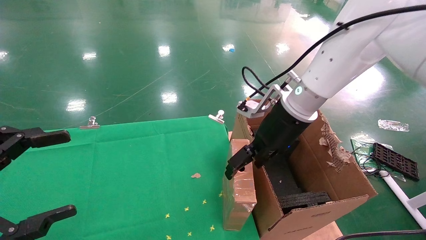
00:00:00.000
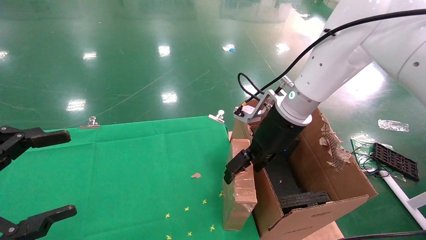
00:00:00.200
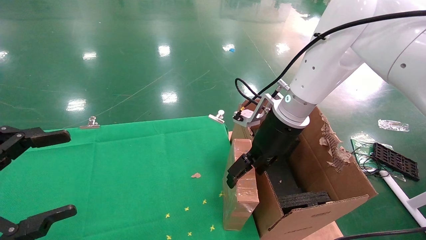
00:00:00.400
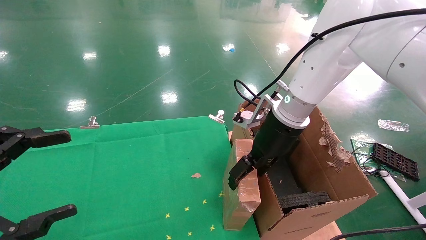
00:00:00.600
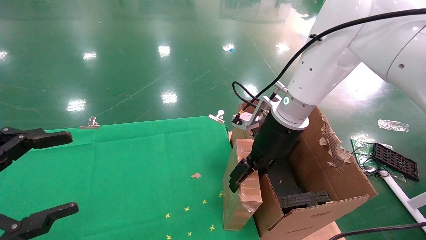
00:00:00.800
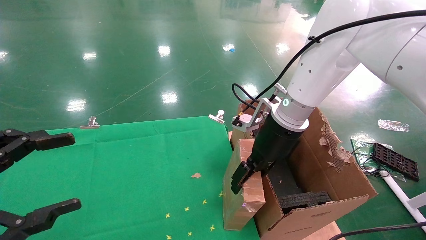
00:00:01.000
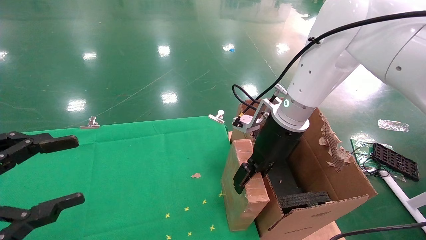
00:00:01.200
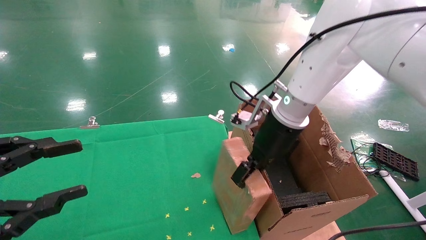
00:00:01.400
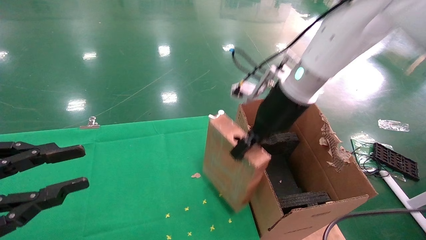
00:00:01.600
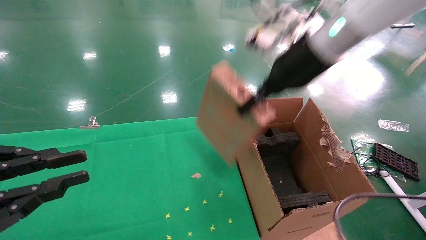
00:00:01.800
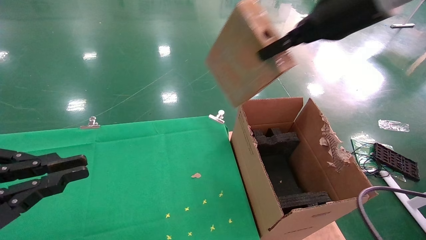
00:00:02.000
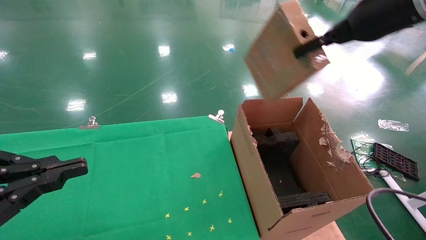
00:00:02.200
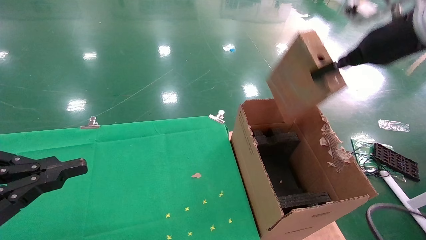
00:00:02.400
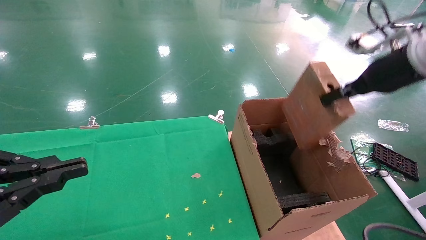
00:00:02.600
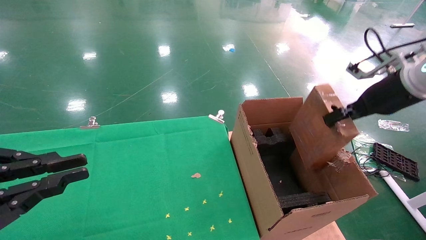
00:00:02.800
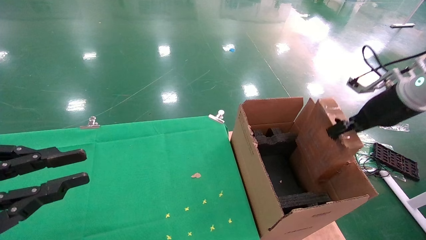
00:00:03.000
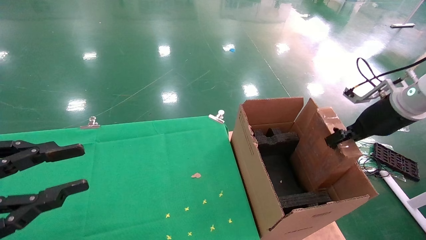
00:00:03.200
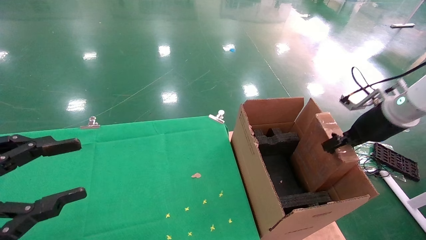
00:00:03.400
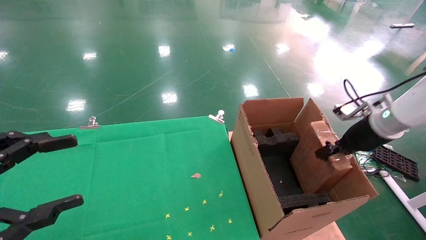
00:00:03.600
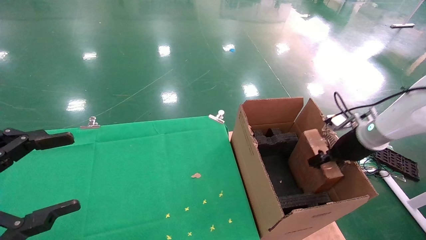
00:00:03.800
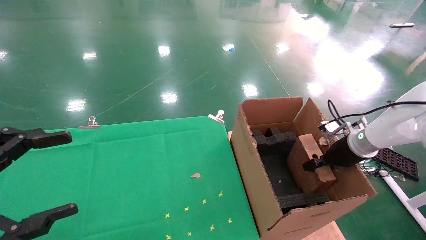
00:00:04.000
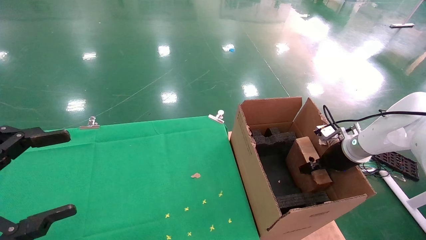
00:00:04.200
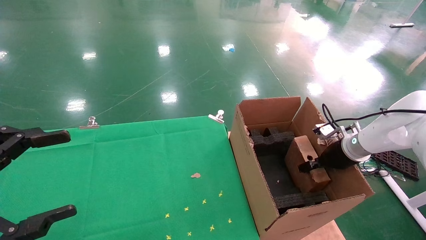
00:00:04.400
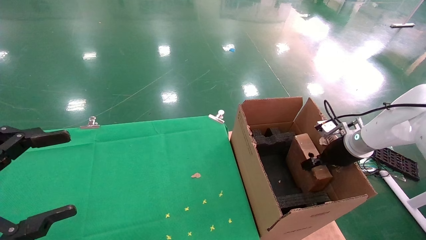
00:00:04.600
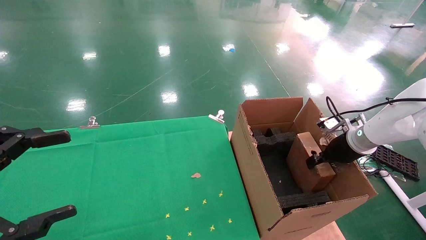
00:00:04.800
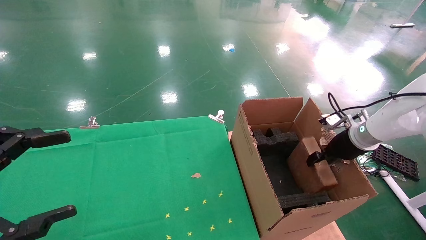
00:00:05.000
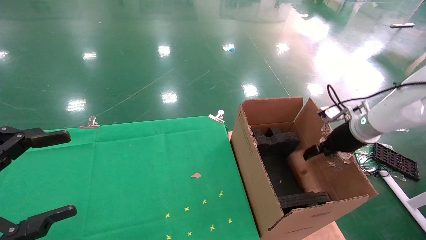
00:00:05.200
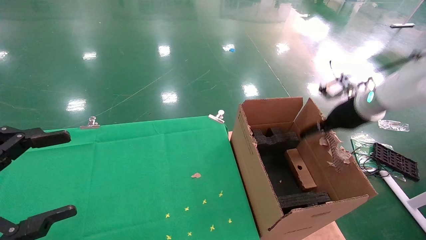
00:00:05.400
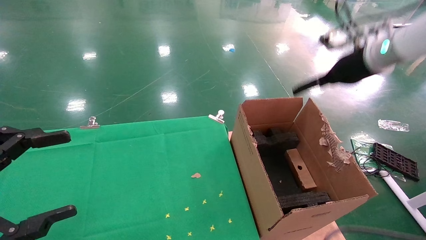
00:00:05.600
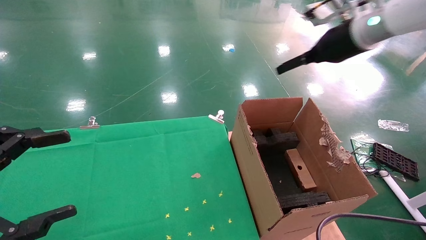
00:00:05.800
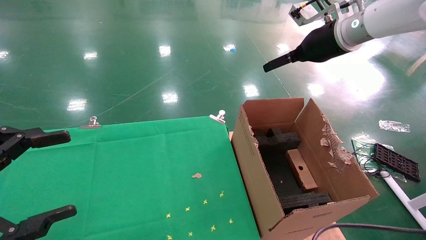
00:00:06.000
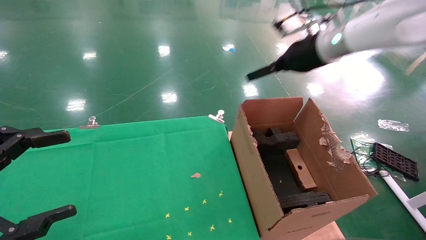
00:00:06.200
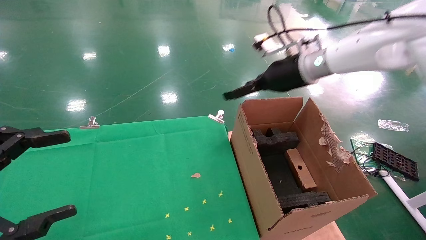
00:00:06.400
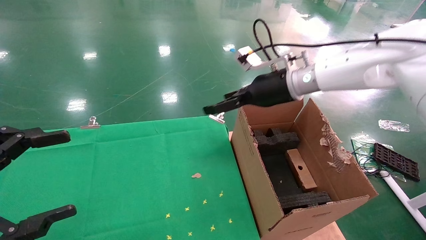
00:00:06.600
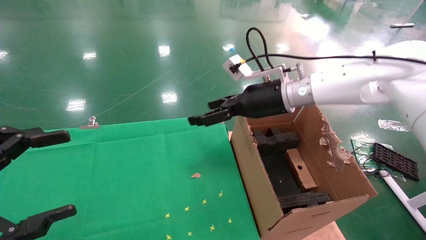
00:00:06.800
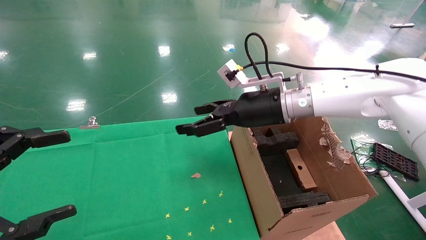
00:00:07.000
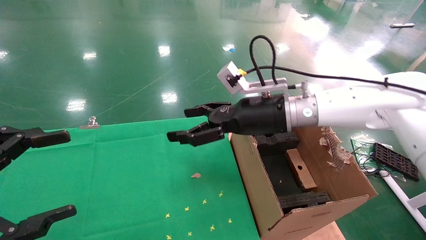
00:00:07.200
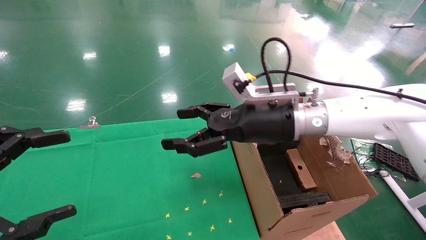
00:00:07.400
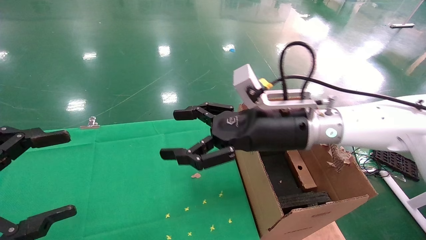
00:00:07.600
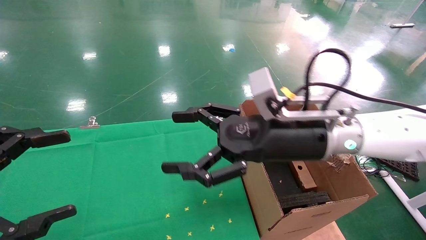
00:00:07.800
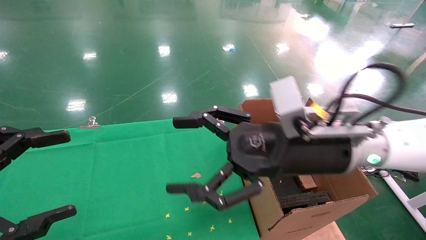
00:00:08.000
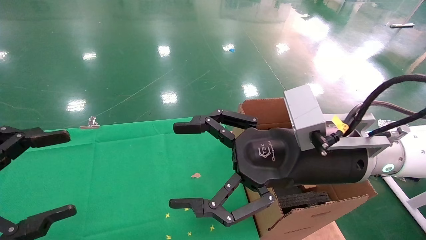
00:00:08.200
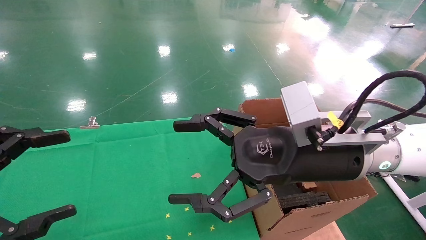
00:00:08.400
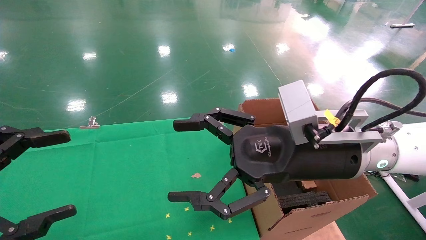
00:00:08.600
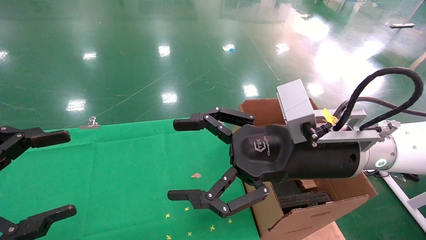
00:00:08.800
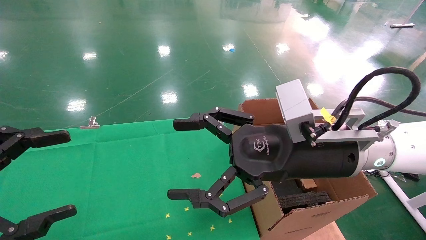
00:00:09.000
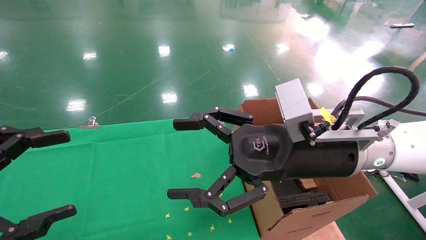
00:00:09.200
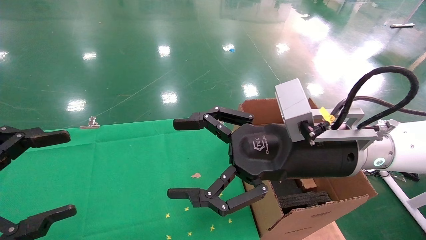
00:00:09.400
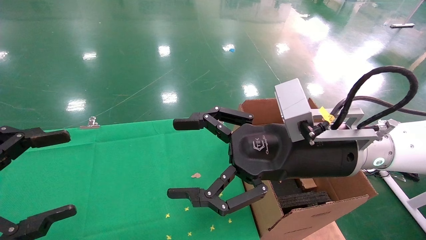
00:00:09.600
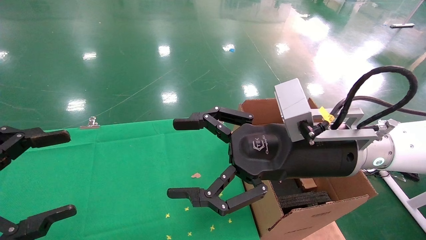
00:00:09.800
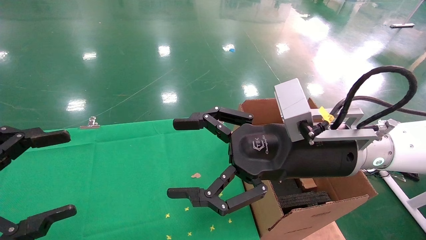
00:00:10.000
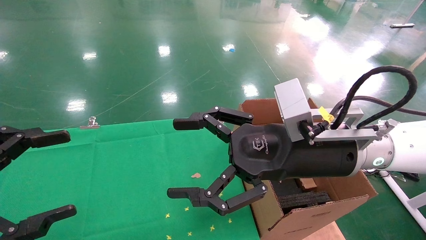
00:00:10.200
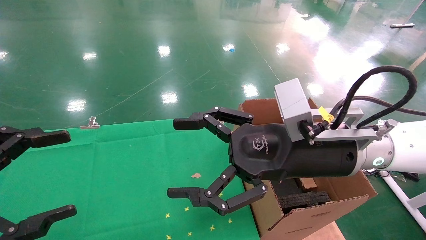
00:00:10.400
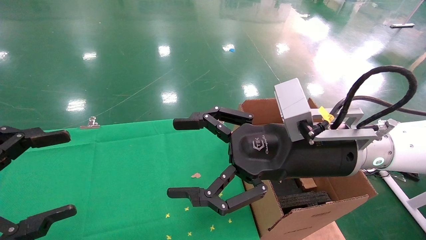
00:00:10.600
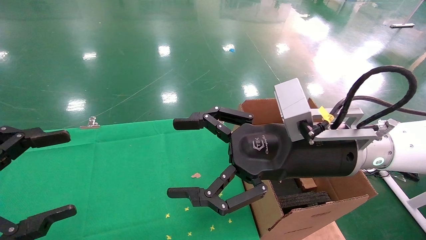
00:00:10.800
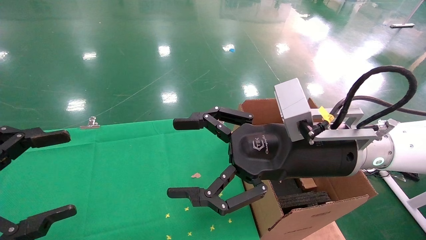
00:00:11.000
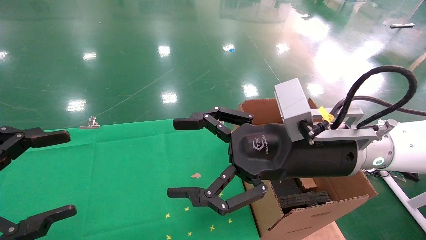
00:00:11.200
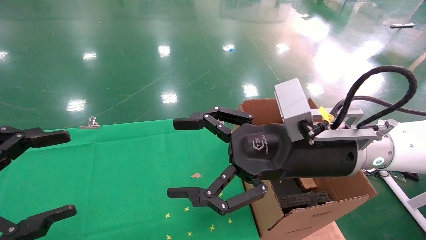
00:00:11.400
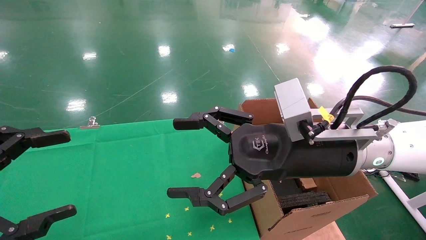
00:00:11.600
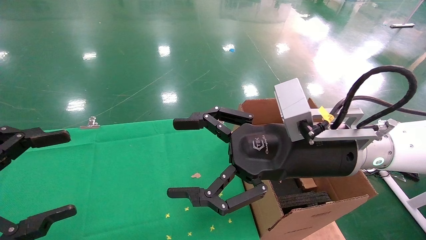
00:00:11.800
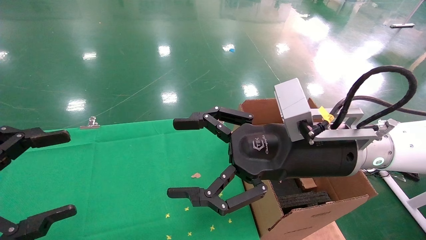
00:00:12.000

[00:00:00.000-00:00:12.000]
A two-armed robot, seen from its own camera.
Task of the whole recording: using a robotic arm to pick up a cardboard box and palace it the carton.
Step, 00:00:01.600 to 00:00:05.600: Place the mouse and the power cord paper box into the container.
00:00:00.000 to 00:00:01.600: The left gripper closes up; the right gripper shifts about 5 cm upward, and closes.
00:00:01.600 to 00:00:03.000: The right gripper shifts some 25 cm to the right.
00:00:03.000 to 00:00:04.400: The left gripper opens its fingers; the right gripper heads downward and forward, covering some 15 cm.
00:00:04.400 to 00:00:06.000: The right gripper moves upward and to the left, some 25 cm, and opens.
00:00:06.000 to 00:00:07.600: The right gripper is displaced to the left, downward and backward by roughly 20 cm.
00:00:07.600 to 00:00:09.000: The right gripper moves backward, roughly 5 cm.
00:00:09.000 to 00:00:12.000: Neither gripper changes place.
